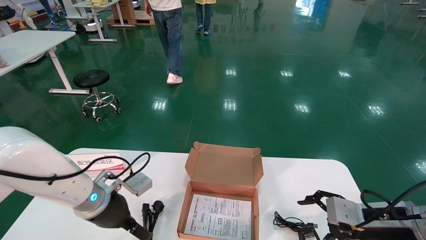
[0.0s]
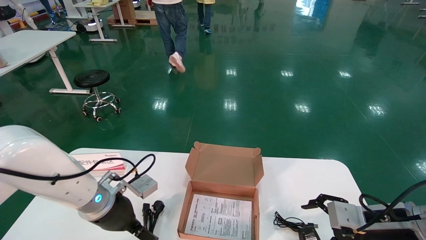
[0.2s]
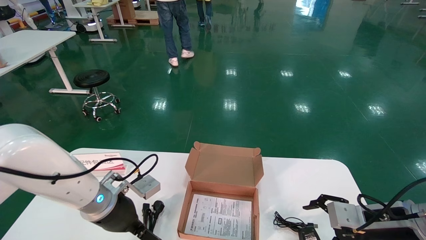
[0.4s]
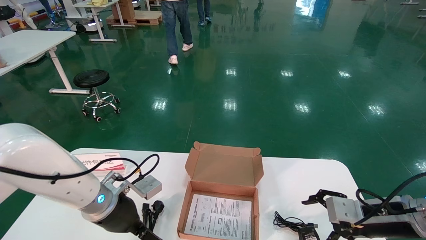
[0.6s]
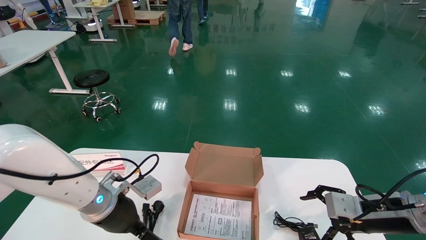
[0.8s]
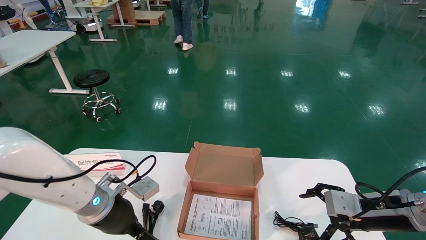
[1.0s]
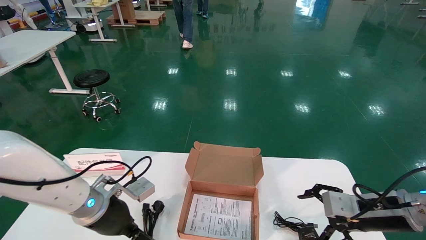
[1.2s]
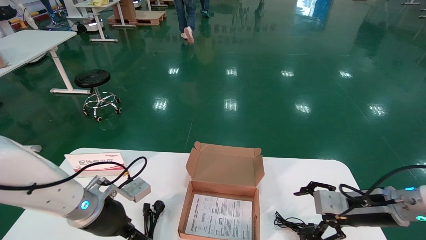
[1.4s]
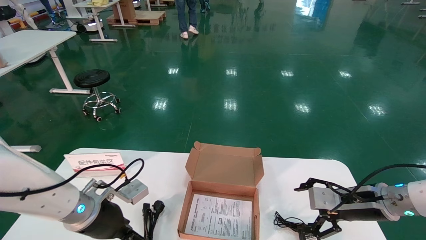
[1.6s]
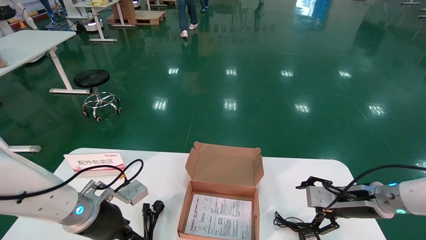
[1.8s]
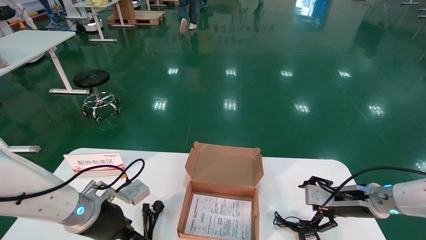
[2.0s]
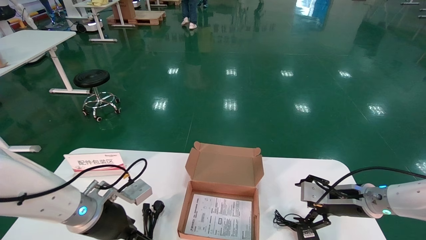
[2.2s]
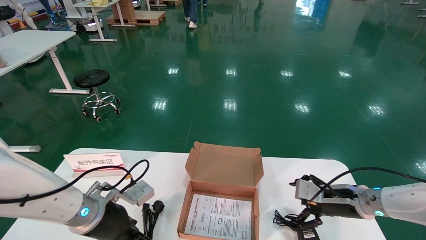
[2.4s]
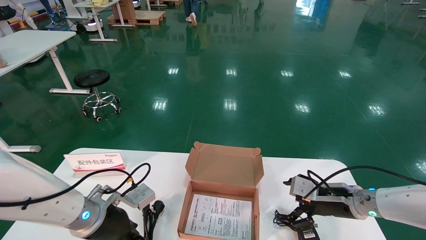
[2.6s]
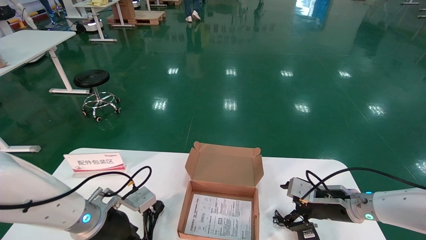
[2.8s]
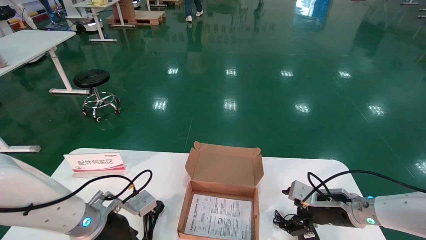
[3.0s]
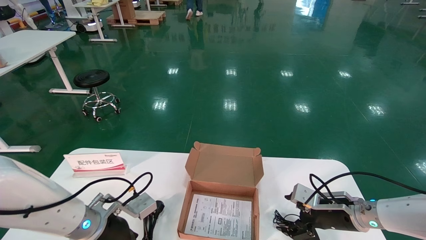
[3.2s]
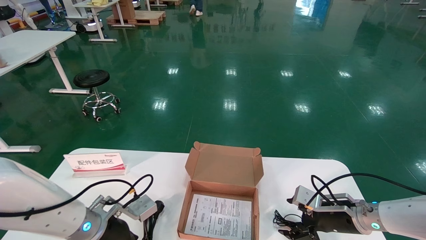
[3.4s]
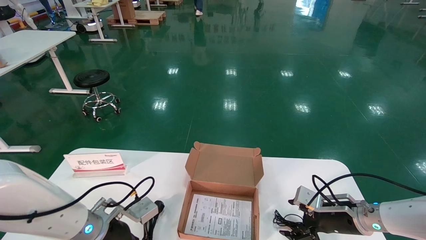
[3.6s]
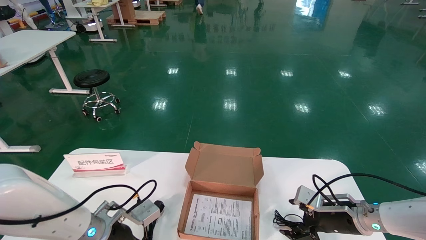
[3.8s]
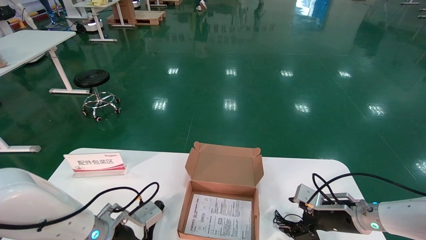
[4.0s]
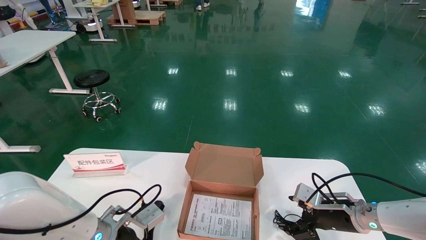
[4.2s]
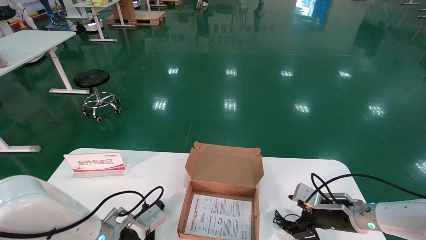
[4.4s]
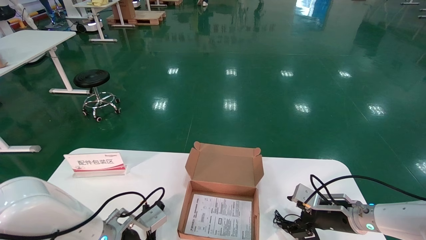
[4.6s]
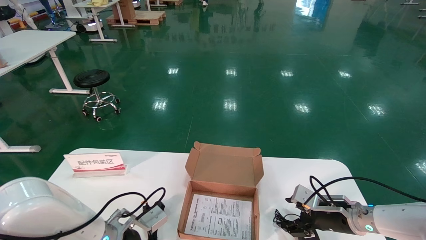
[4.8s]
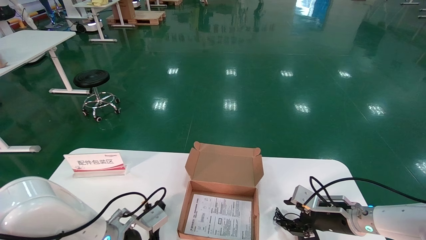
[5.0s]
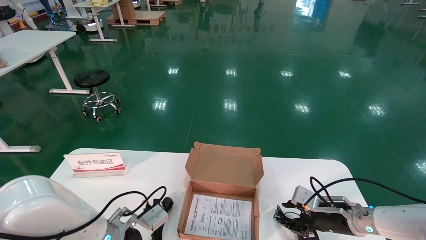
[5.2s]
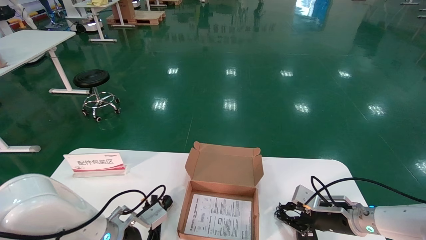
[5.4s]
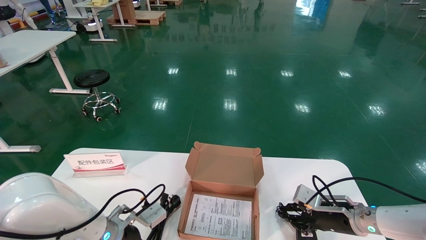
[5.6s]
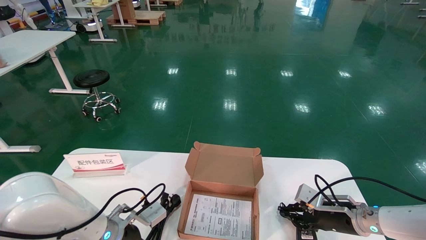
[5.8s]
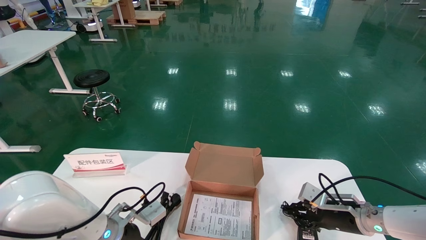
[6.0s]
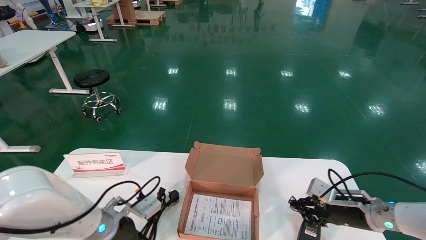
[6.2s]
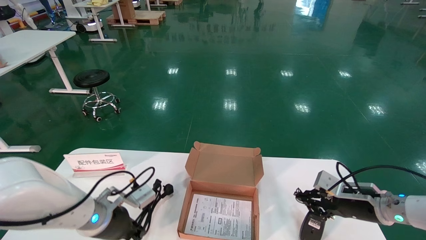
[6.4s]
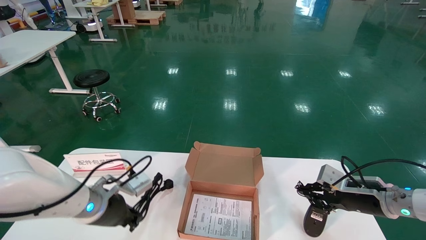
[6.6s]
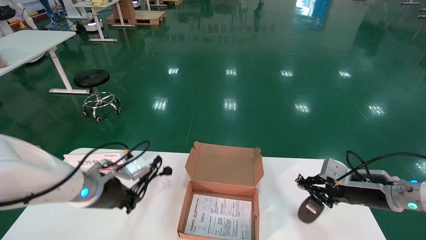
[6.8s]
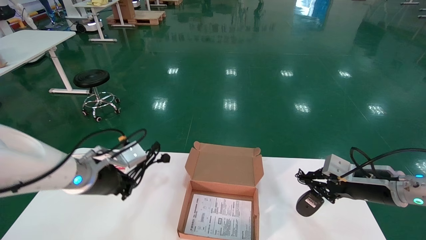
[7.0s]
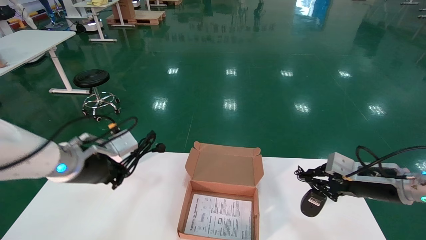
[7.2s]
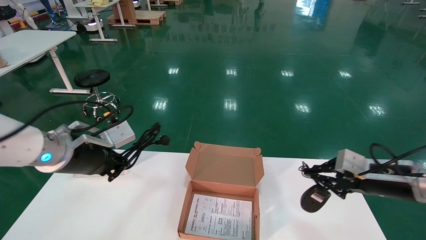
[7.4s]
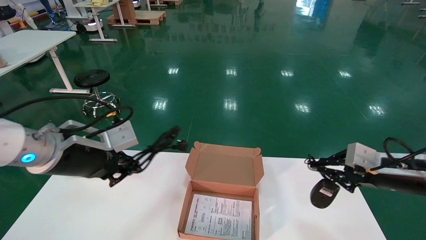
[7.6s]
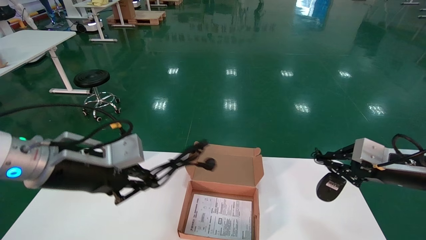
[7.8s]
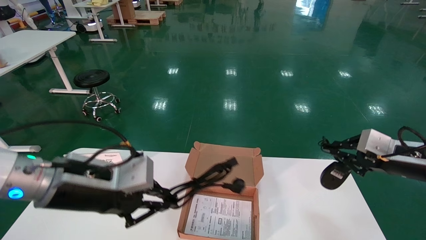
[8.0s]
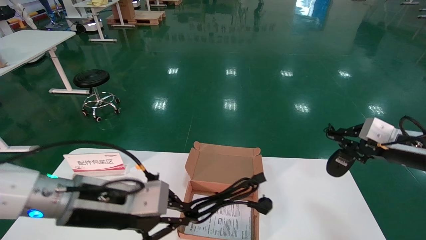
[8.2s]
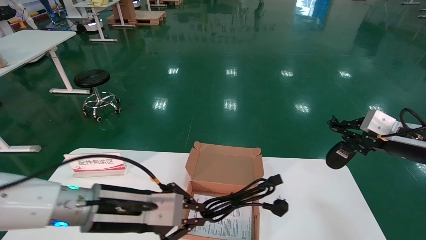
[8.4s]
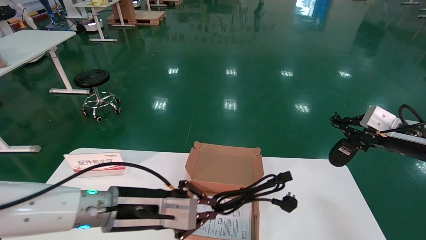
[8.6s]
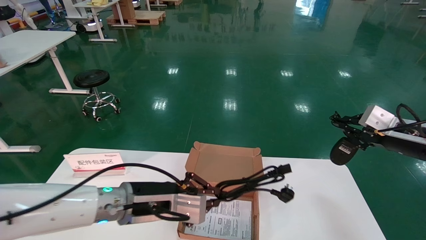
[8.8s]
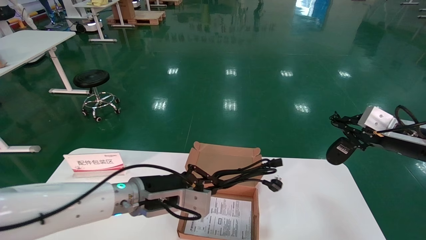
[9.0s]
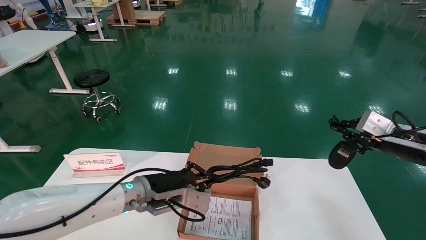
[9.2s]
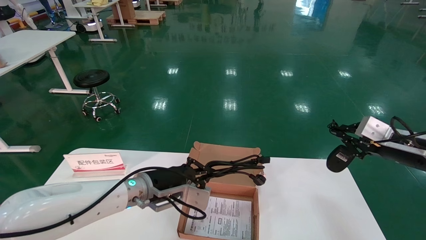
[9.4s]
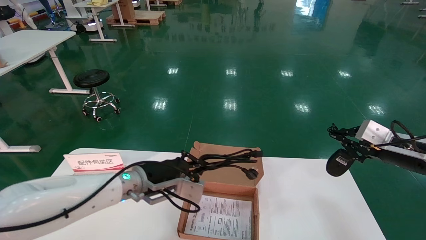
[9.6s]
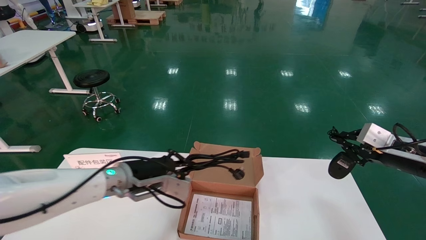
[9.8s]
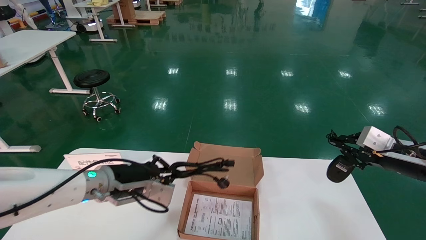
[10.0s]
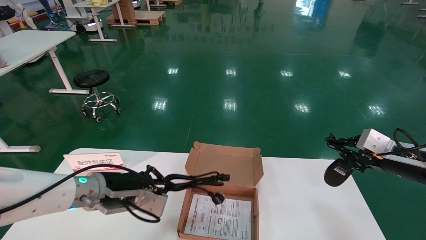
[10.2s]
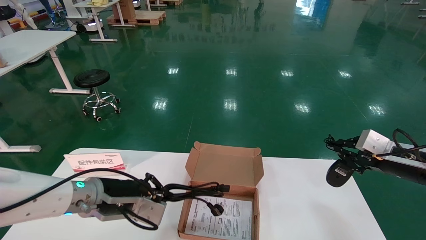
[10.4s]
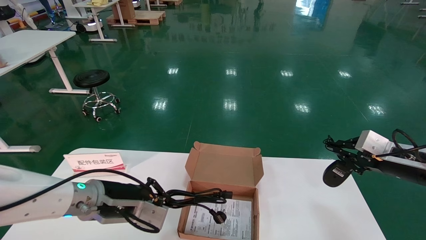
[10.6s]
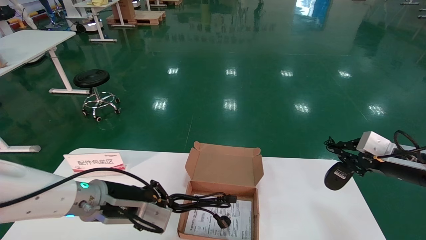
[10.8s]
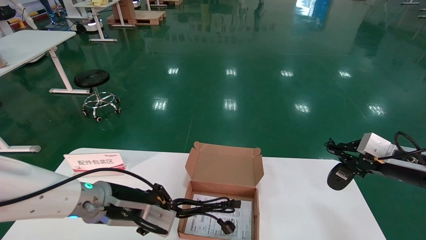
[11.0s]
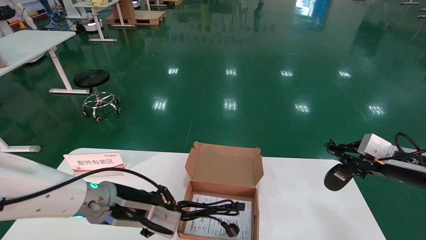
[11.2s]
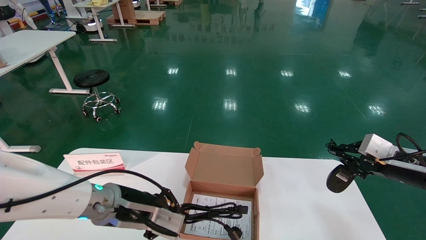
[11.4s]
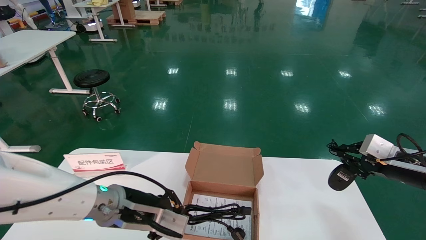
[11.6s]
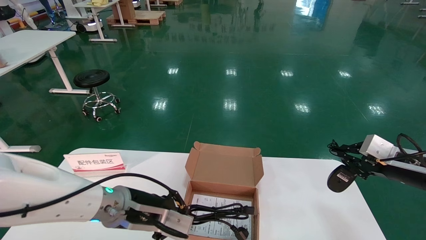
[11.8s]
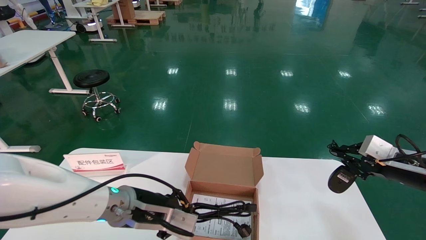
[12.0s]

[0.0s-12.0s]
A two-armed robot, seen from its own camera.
Step, 0.0s to 5.4s: Grasp the mouse and data cable.
0.0s to 1.6s: The right gripper goes about 5 cm forward.
1.6s to 3.0s: The right gripper ends up about 5 cm from where it was.
3.0s to 4.4s: The grippers move only a little.
4.4s to 6.0s: The right gripper closes its fingers. The left gripper closes.
6.0s to 7.6s: The right gripper shifts some 15 cm upward and to the right. The left gripper shifts about 20 cm upward.
7.6s to 9.0s: The right gripper ends up some 5 cm from where it was, while the left gripper heads to the right and downward, covering roughly 15 cm.
9.0s to 10.4s: The left gripper goes some 5 cm to the left.
10.4s to 12.0s: The left gripper is displaced to the right by about 5 cm.

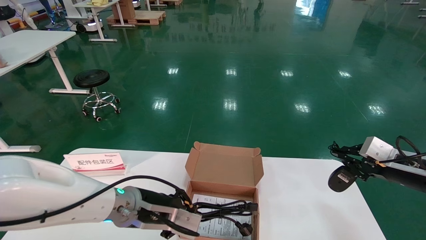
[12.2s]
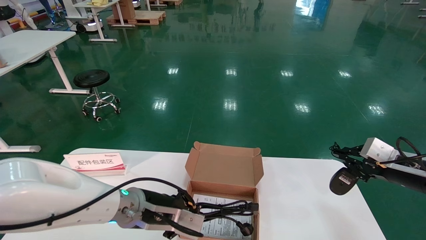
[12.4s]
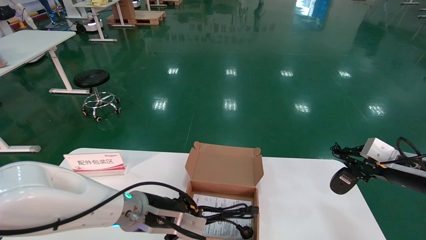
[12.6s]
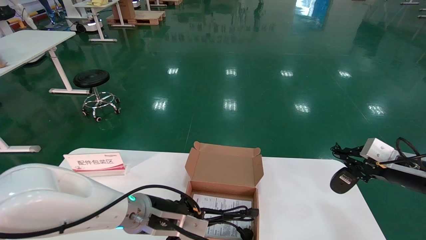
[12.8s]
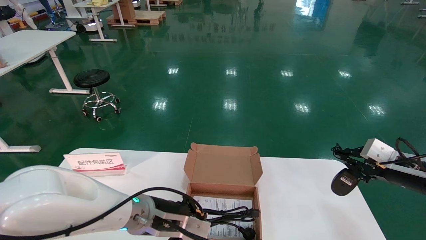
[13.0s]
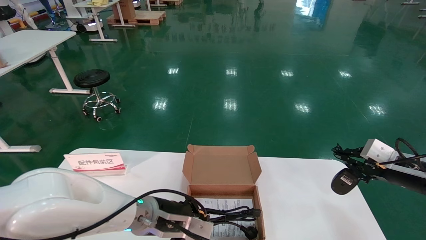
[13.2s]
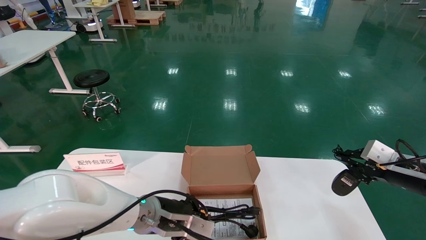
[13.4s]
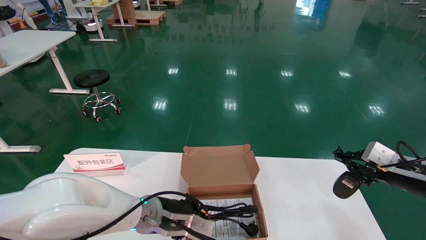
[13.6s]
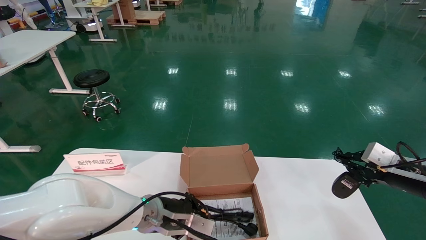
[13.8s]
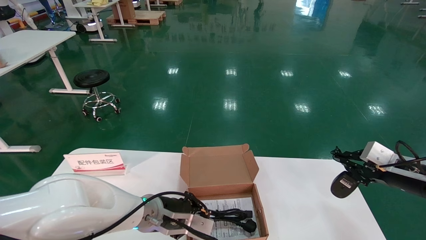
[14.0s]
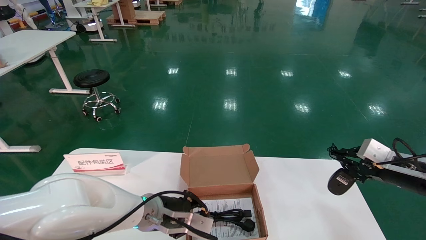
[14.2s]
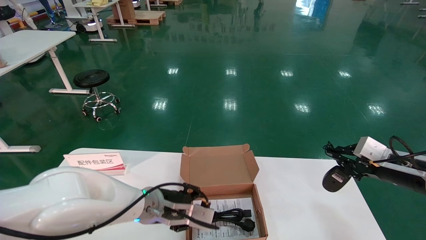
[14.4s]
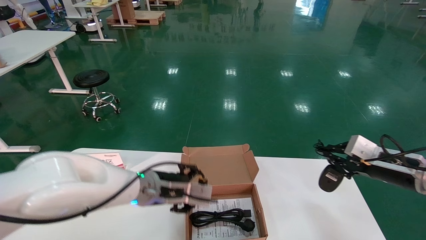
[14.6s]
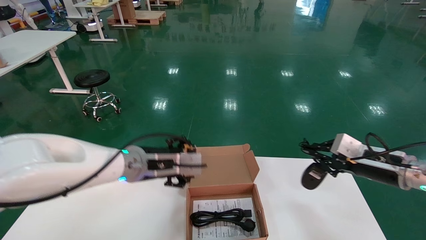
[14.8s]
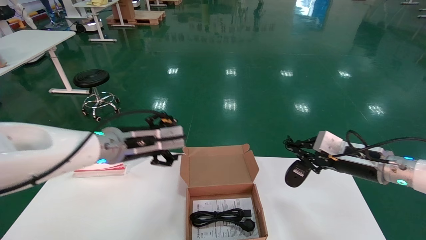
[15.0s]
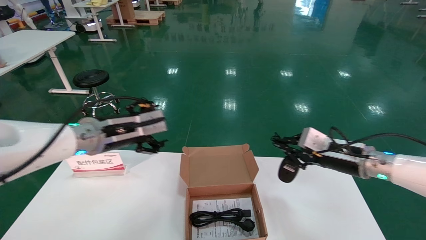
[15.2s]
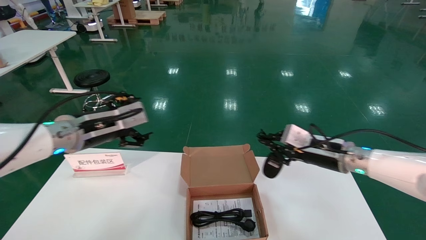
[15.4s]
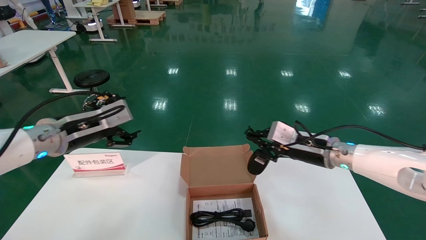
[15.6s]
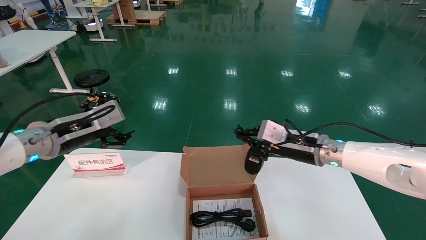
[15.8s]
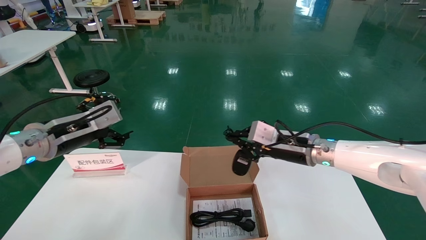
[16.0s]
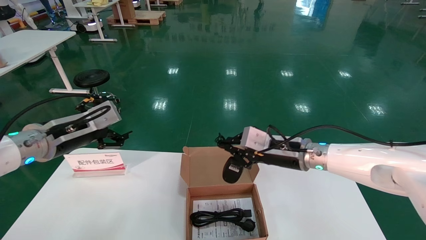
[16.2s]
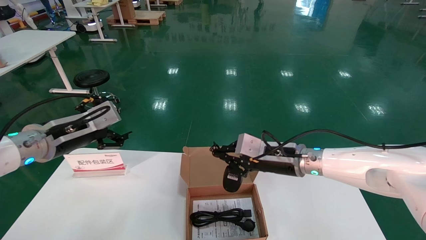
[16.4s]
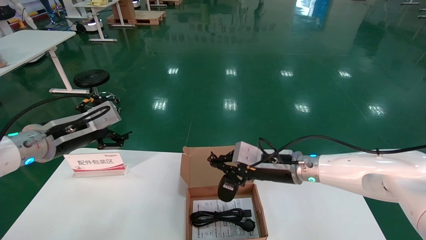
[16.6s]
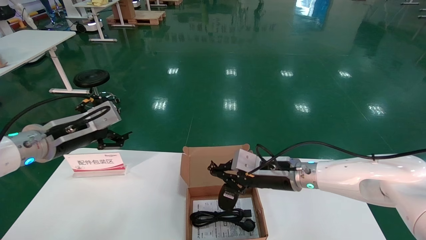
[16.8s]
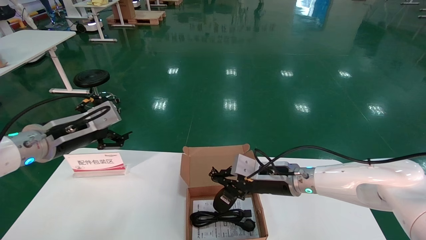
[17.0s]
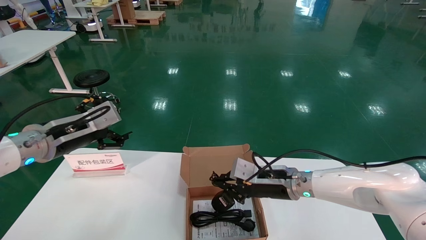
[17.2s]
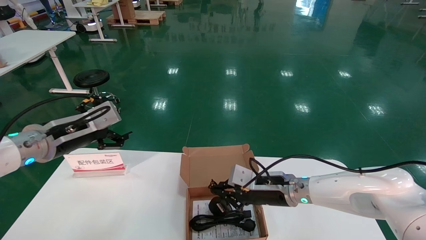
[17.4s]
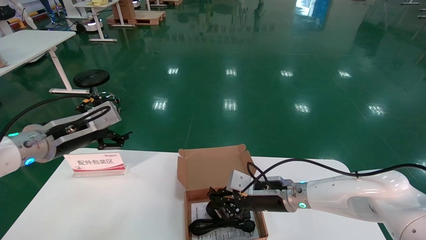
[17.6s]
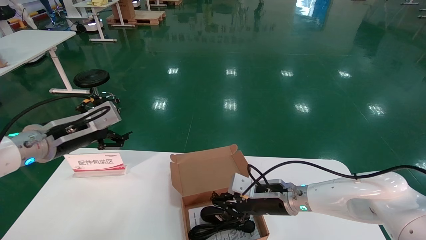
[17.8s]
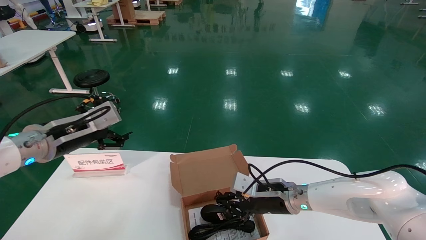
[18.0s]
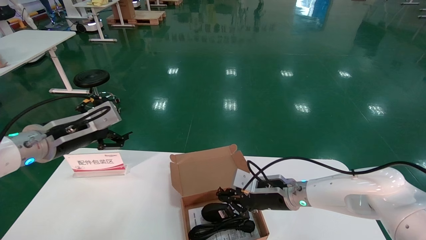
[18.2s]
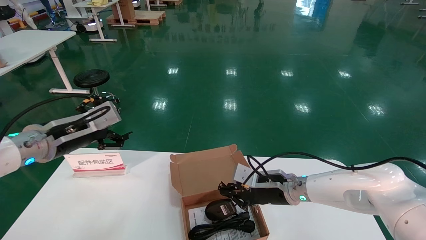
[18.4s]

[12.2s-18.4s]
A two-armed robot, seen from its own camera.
12.2s to 13.8s: The left gripper changes place by about 5 cm.
13.8s to 15.4s: The left gripper heads upward and to the left, covering roughly 20 cm, and opens its fingers. Meanwhile the right gripper moves to the left, some 15 cm.
15.4s to 16.8s: The left gripper moves about 5 cm, while the right gripper travels to the left by roughly 10 cm.
16.8s to 18.4s: The grippers stay close to where they were, moving slightly.
